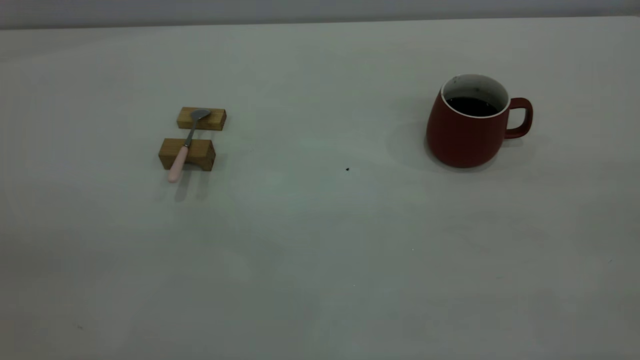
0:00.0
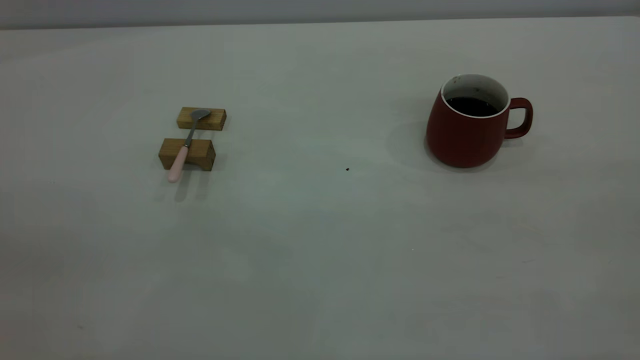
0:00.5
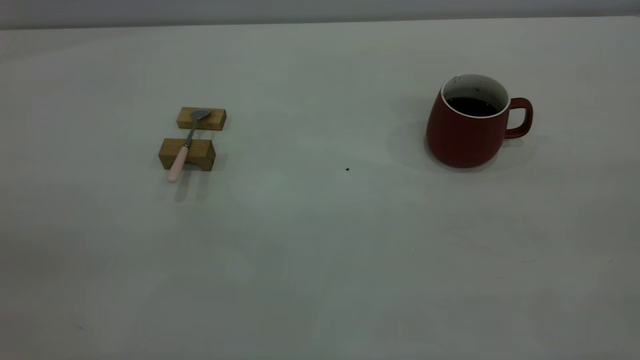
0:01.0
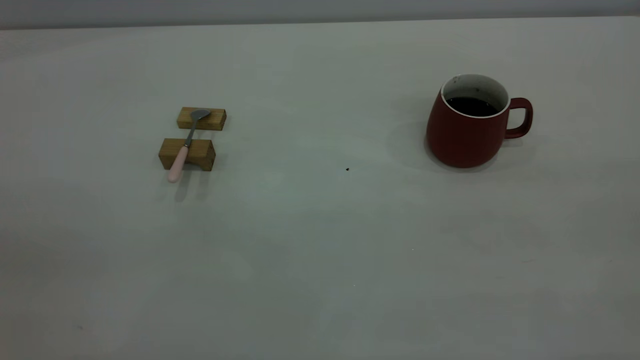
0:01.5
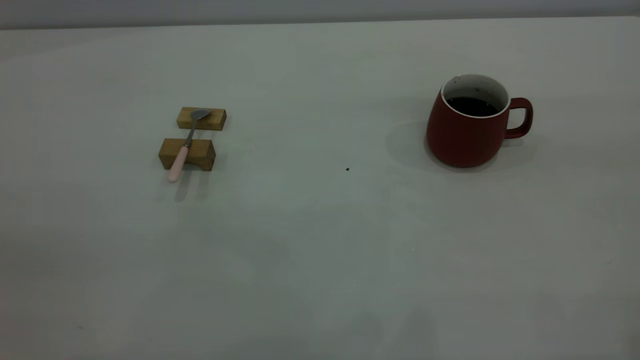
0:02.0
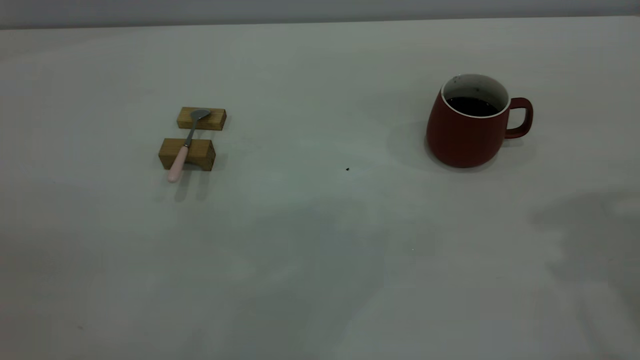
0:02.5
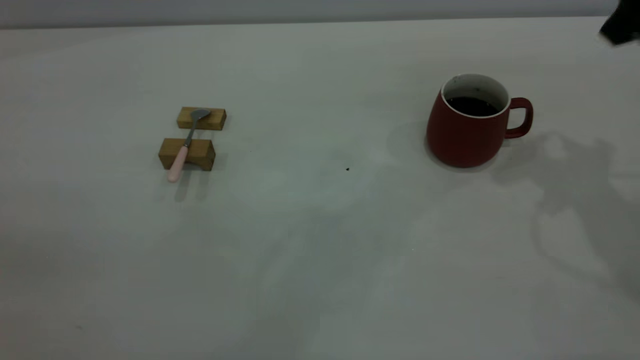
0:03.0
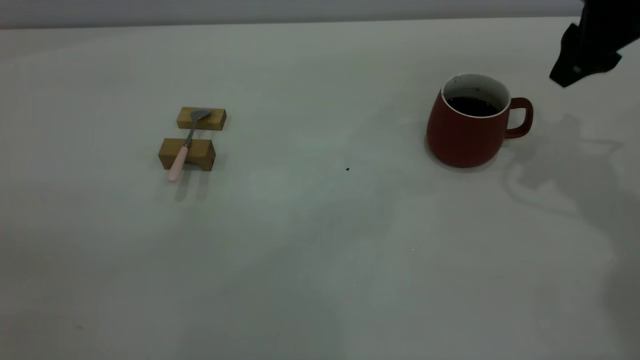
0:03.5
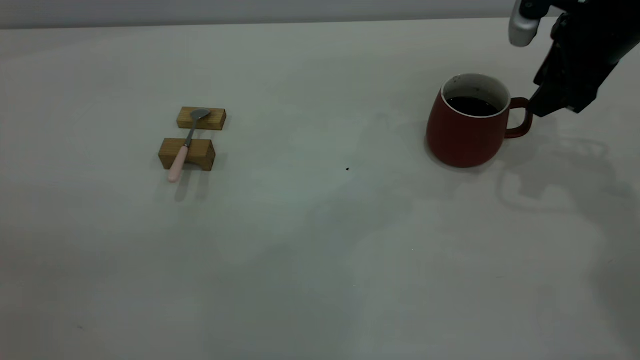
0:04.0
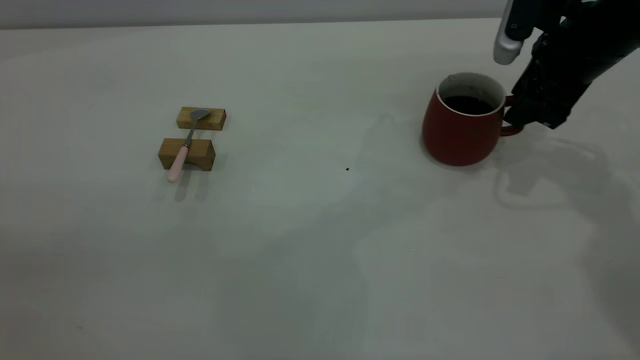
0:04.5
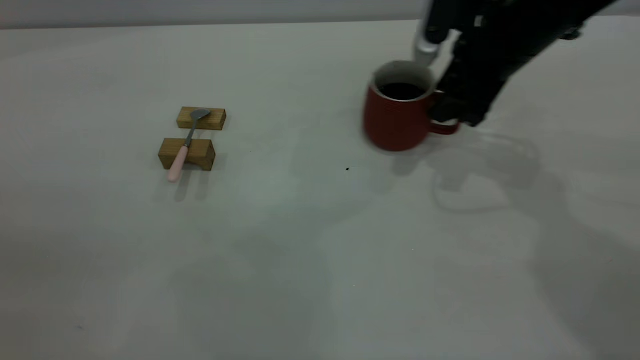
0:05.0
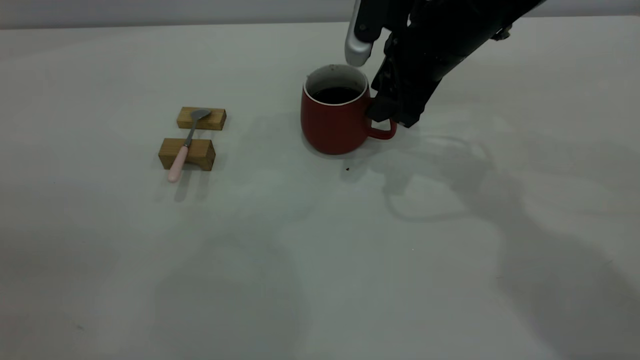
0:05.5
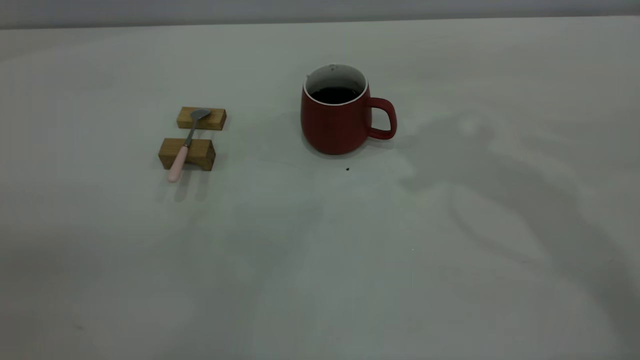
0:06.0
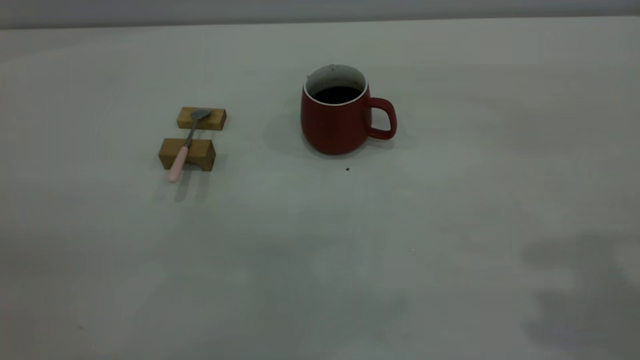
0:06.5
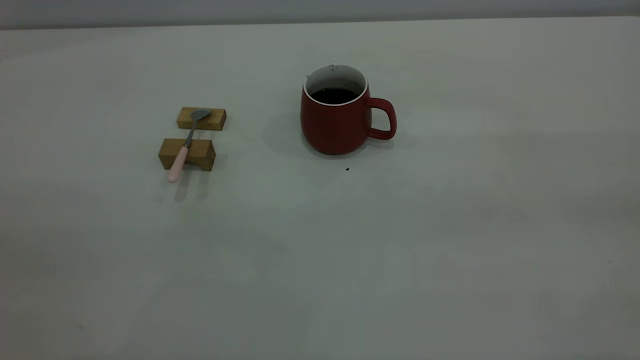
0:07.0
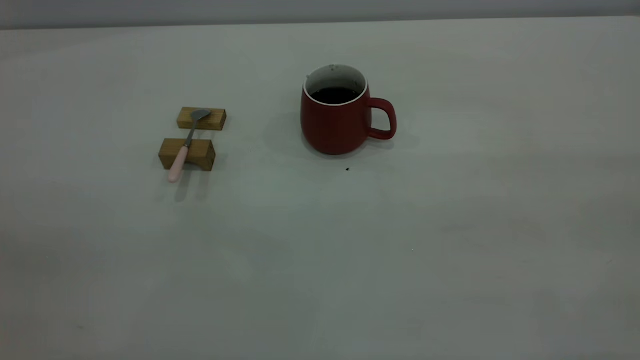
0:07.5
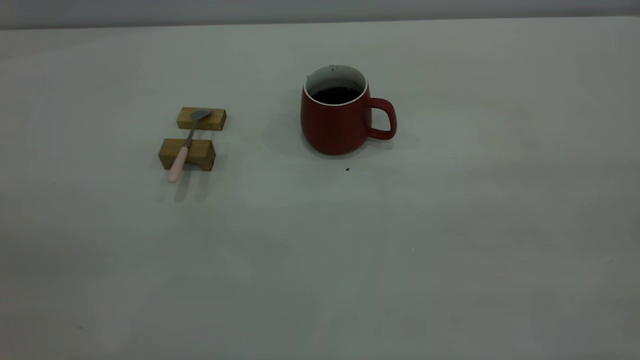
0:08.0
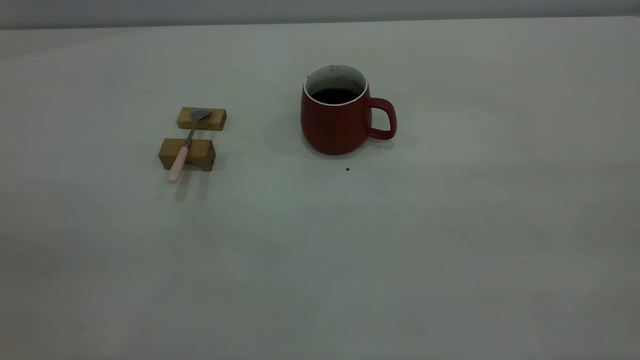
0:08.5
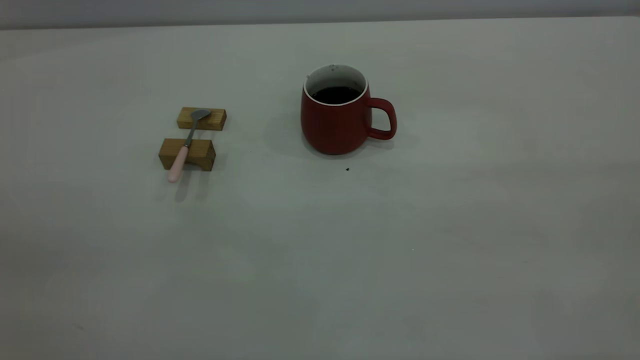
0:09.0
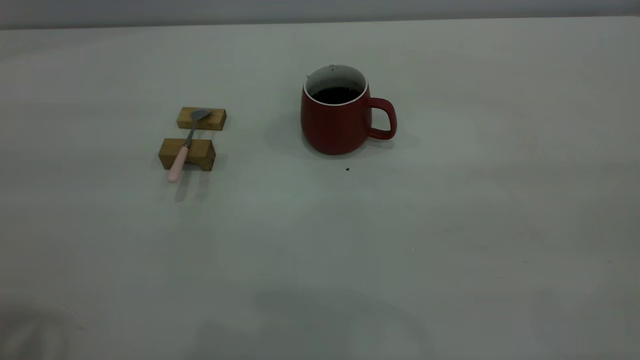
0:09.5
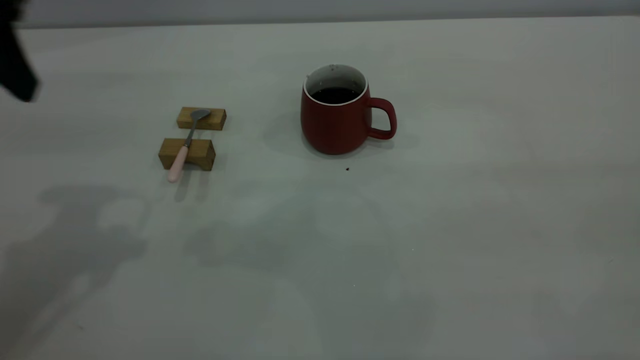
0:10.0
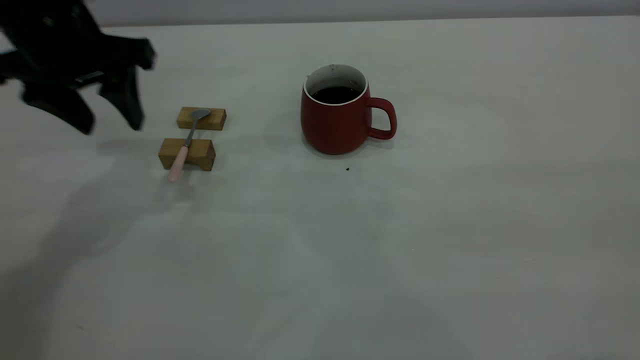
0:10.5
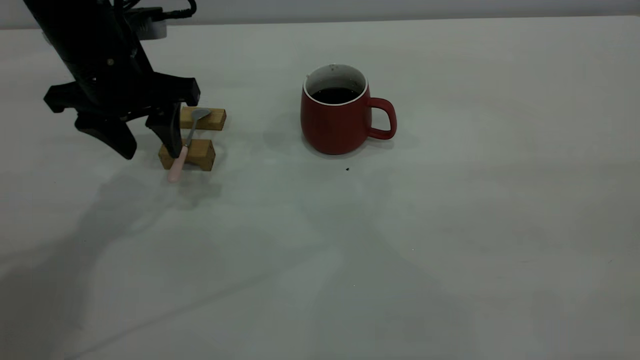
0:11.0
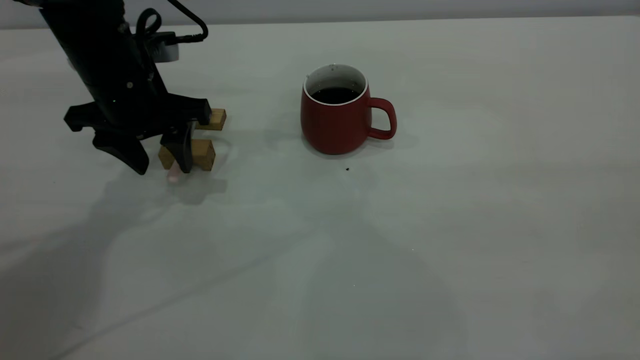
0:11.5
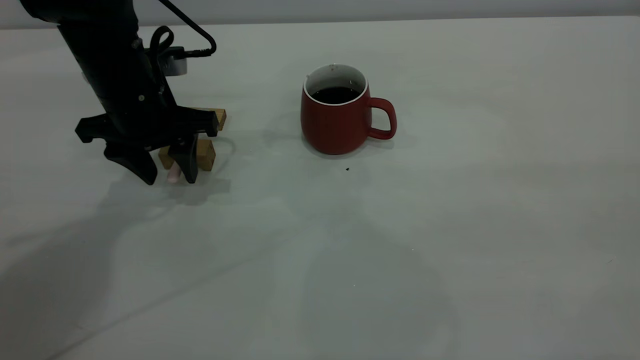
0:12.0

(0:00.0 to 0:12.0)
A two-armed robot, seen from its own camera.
Step, 0:00.0 - 0:05.5: Move the cup with coffee to the center of view.
0:02.0 - 0:04.0: The right gripper moves forward and downward, some 35 cm, and closes its fingers.
0:04.0 - 0:06.0: The right gripper is displaced upward and to the left by about 15 cm.
0:08.0 - 0:10.0: The left gripper moves forward, approximately 30 cm.
0:10.0 - 0:12.0: The left gripper goes about 20 cm downward and forward.

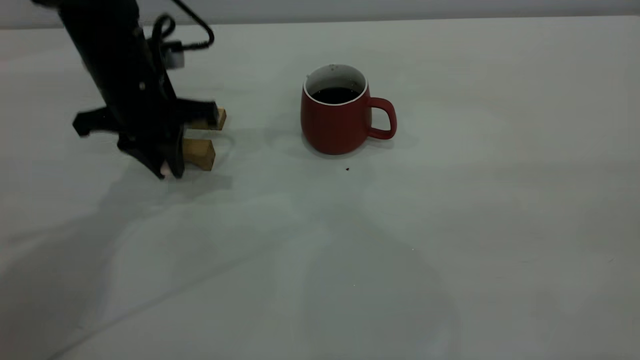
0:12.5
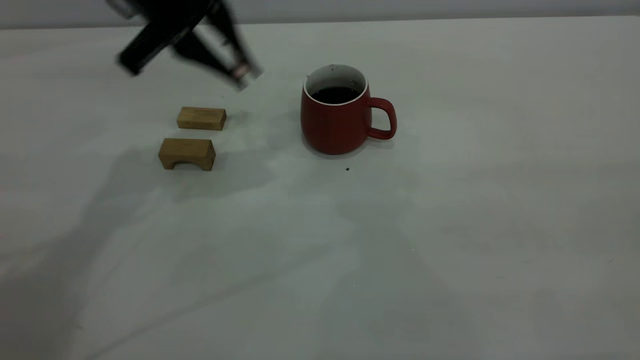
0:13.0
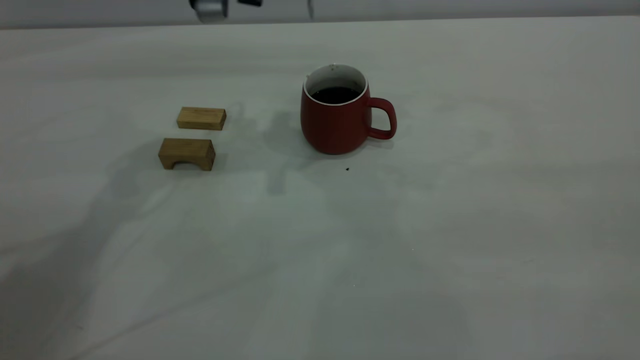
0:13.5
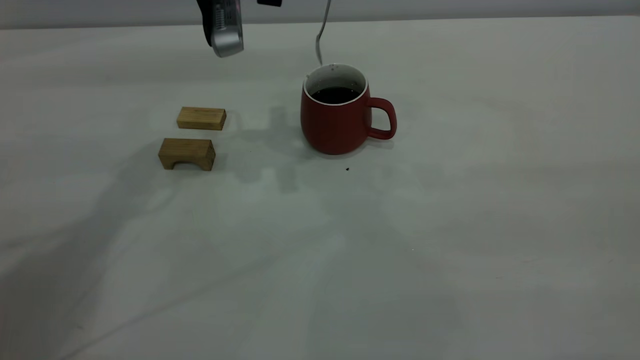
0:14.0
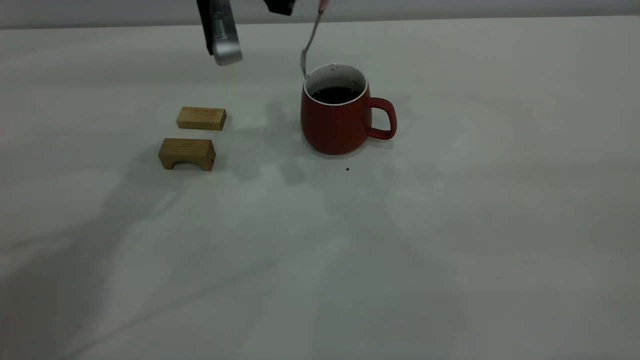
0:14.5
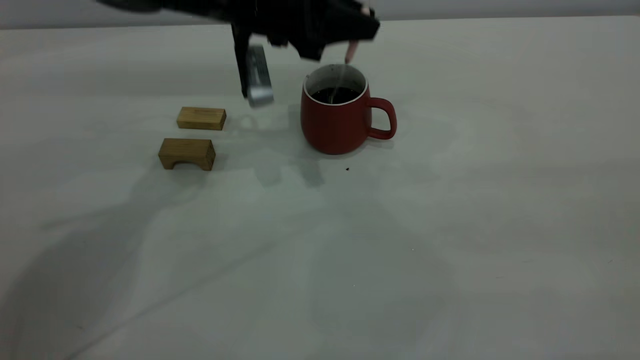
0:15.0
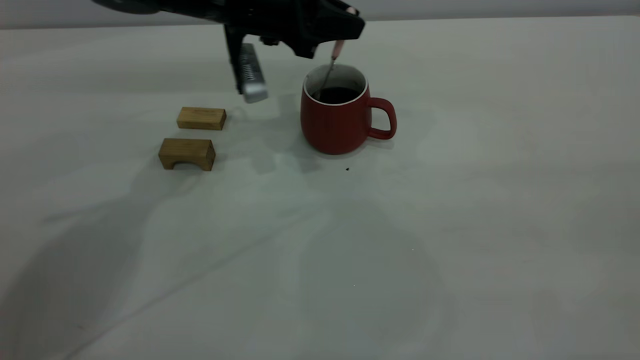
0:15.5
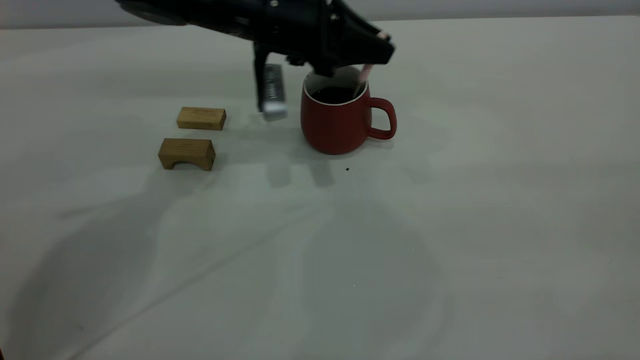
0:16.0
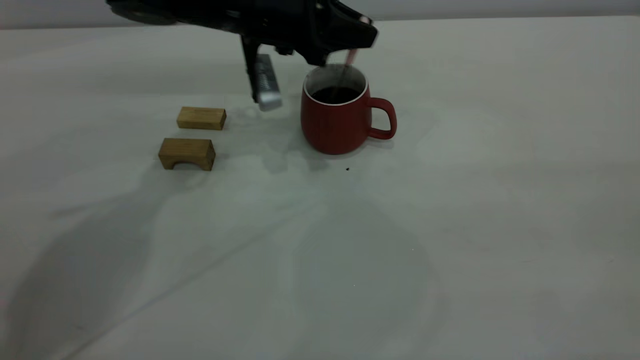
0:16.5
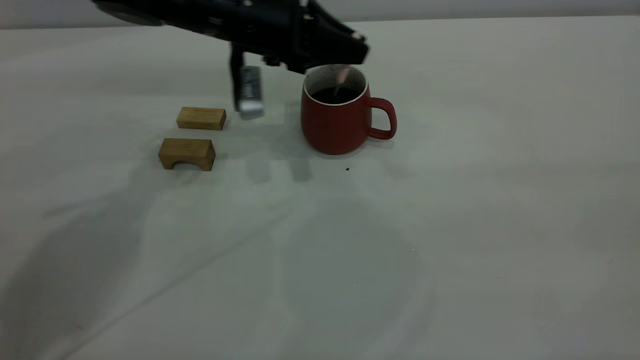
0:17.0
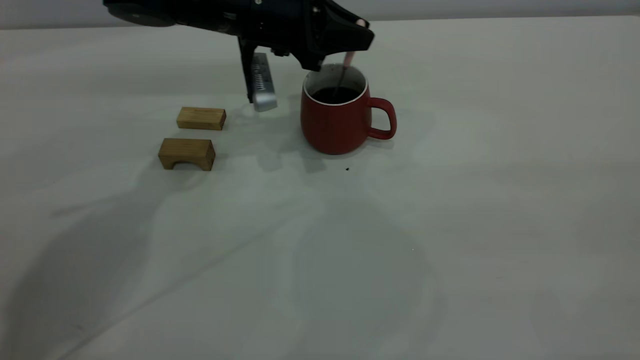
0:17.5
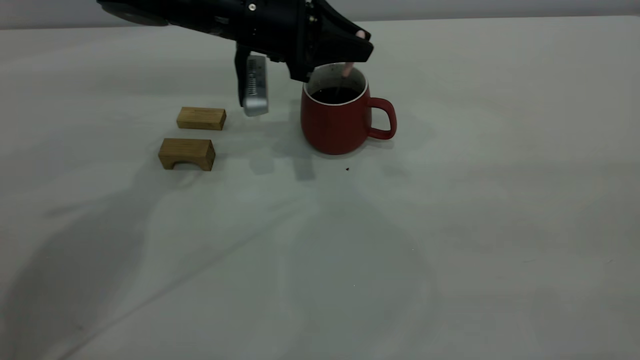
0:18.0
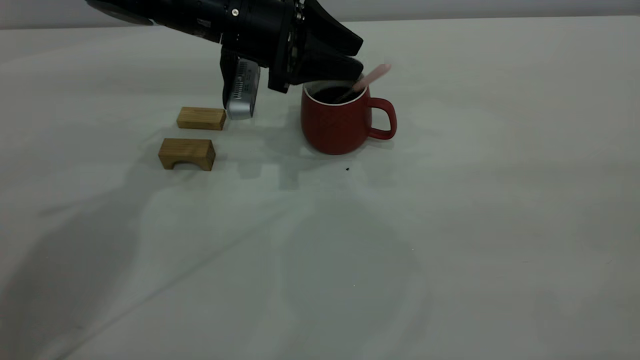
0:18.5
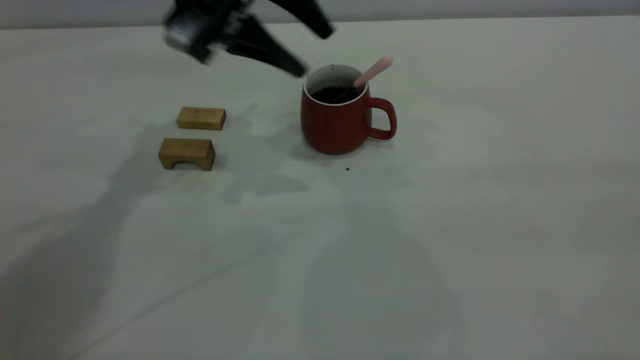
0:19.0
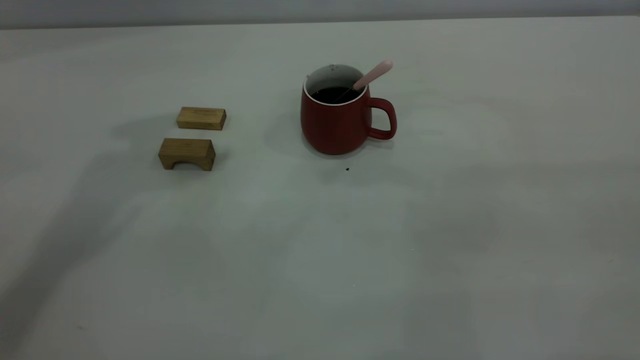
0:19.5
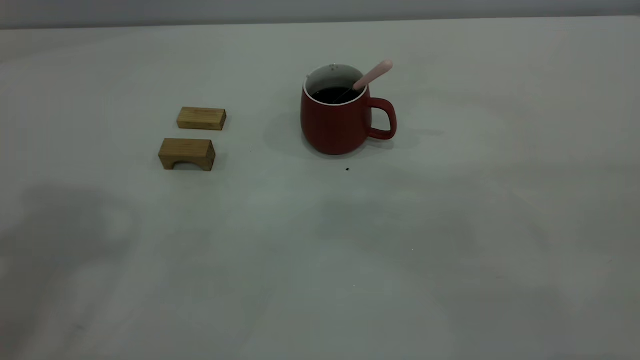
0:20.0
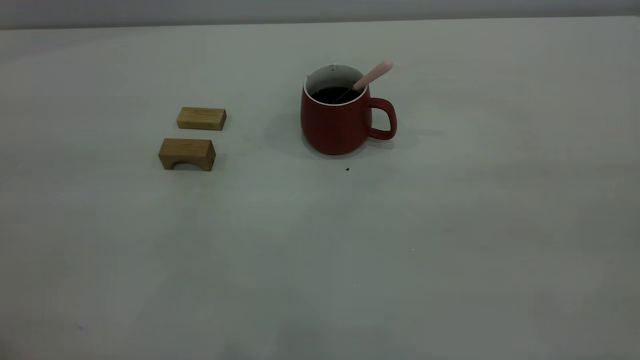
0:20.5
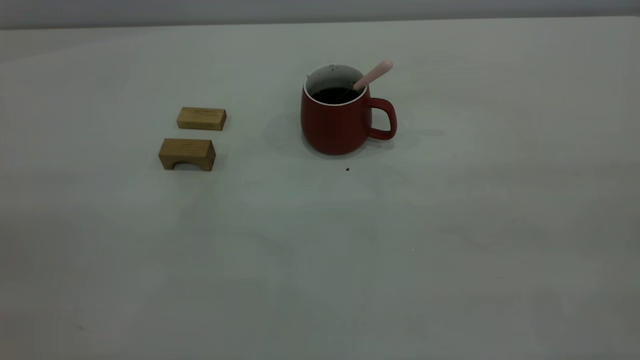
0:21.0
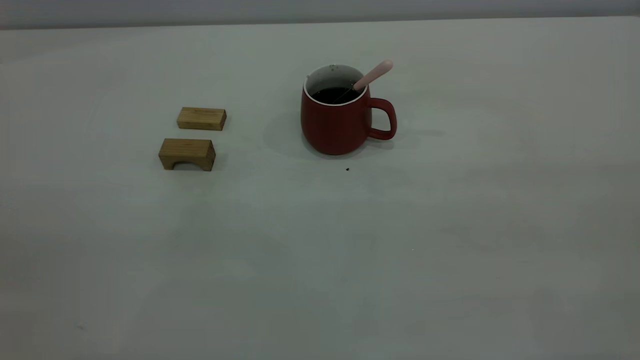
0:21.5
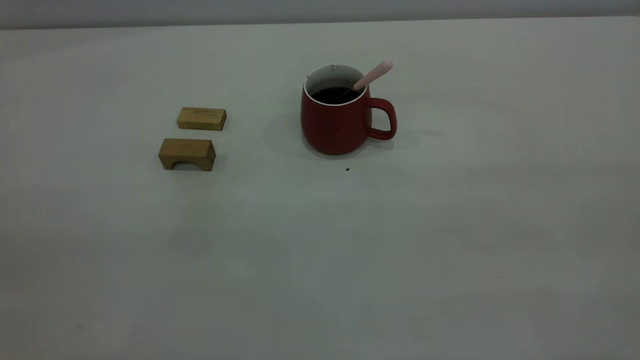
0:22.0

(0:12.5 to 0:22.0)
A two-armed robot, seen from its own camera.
Step, 0:13.0 - 0:19.0: Stir the coffee in the cup.
0:12.5 - 0:14.5: The left gripper moves to the right and upward, some 10 cm.
0:14.5 - 0:16.5: The left gripper travels downward by roughly 5 cm.
0:16.5 - 0:18.0: The grippers stay close to where they were, moving slightly.
0:18.0 - 0:20.0: The left gripper shifts roughly 40 cm upward and backward, and opens.
